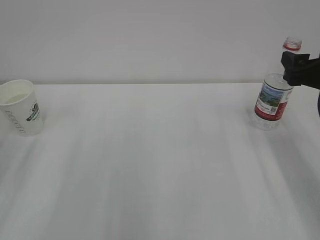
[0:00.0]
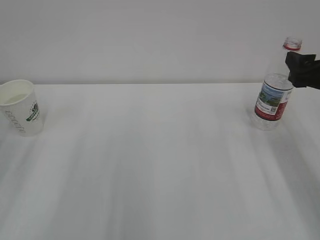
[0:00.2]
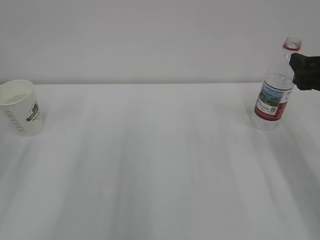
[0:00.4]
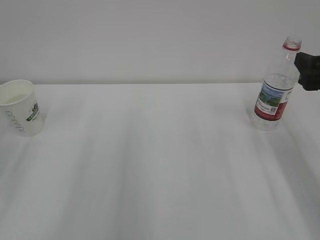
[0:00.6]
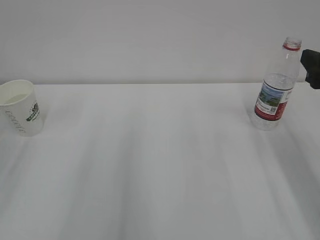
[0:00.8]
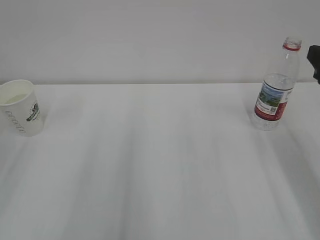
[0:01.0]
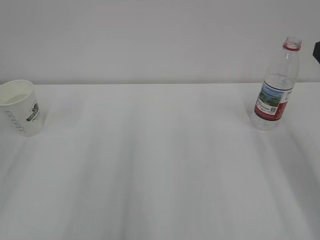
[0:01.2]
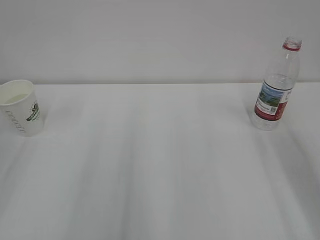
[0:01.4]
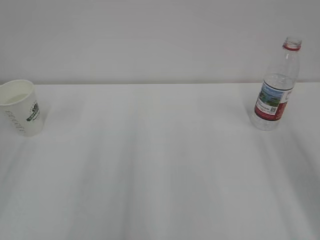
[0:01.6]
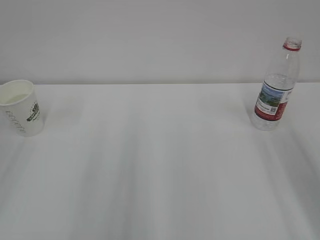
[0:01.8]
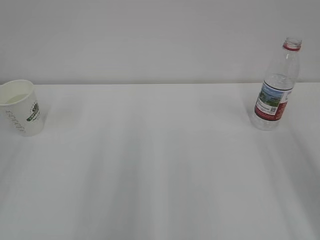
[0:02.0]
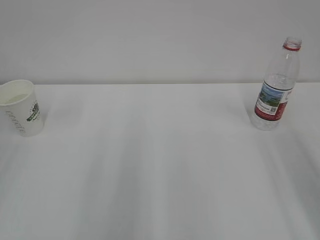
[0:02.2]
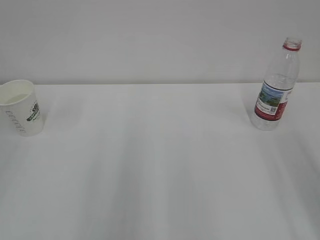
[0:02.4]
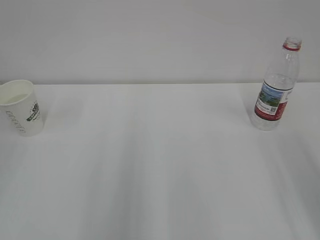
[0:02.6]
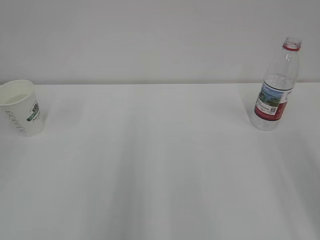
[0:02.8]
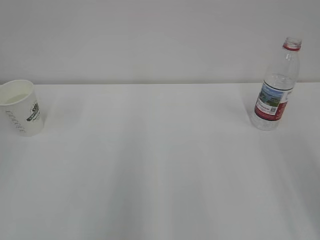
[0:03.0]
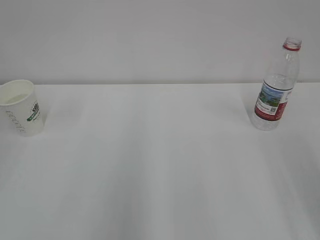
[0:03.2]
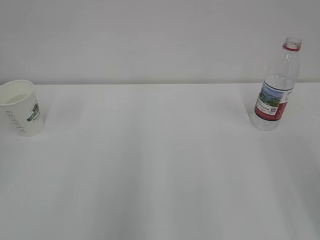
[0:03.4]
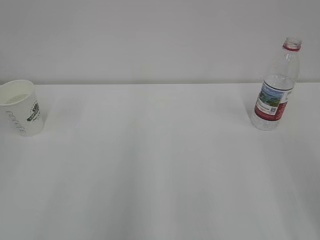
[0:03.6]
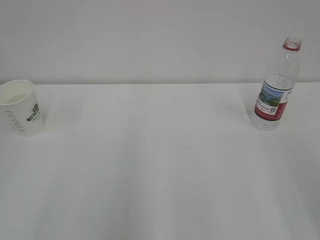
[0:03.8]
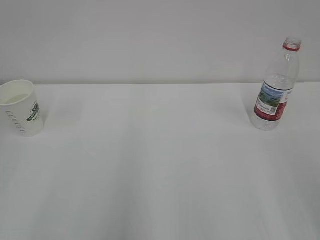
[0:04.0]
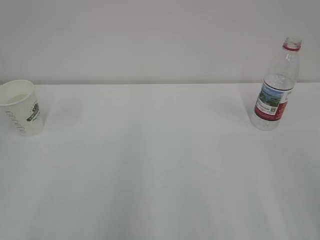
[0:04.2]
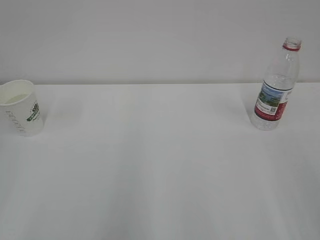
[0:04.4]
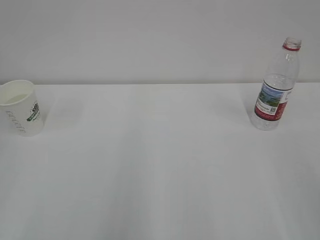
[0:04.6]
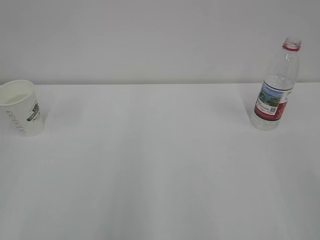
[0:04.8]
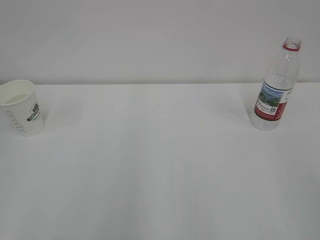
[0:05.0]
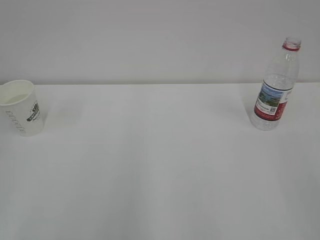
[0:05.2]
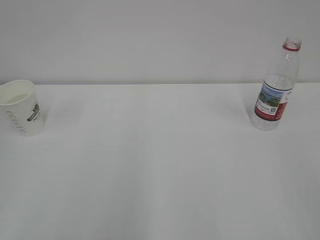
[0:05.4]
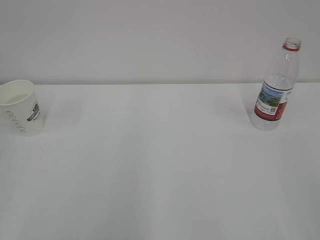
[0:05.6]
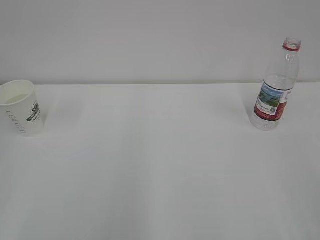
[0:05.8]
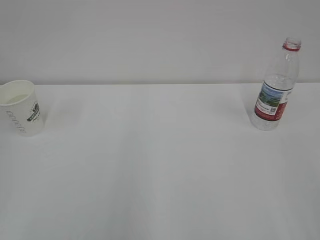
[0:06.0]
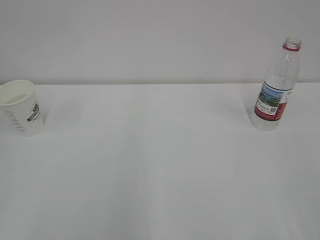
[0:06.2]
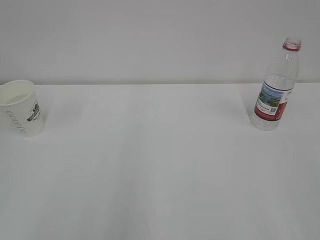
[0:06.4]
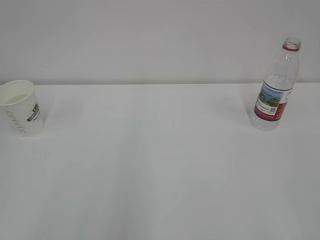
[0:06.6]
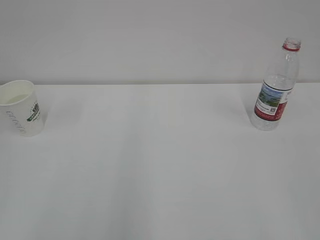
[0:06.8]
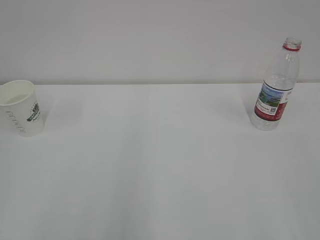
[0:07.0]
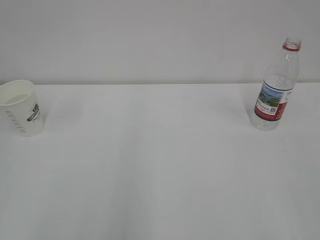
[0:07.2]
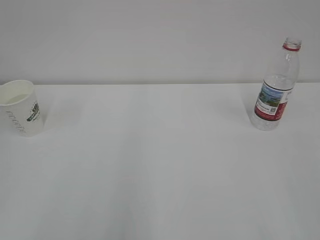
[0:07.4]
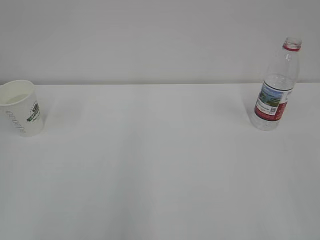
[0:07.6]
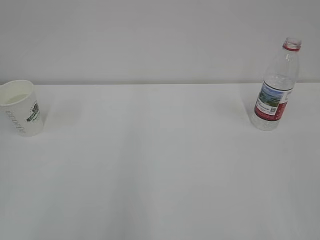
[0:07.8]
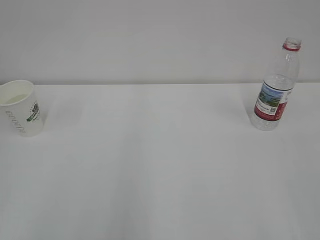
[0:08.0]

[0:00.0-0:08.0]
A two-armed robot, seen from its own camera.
0.0 to 1.6 s: The right gripper goes some 15 cm backward and upward.
6.4 to 8.0 s: Neither gripper changes place.

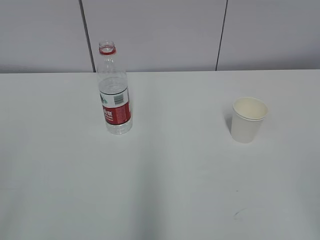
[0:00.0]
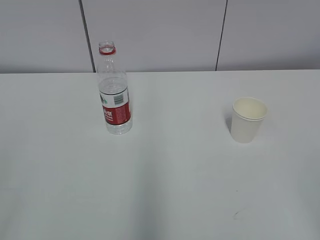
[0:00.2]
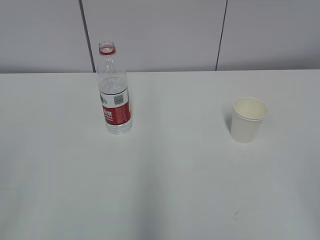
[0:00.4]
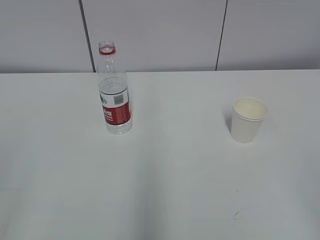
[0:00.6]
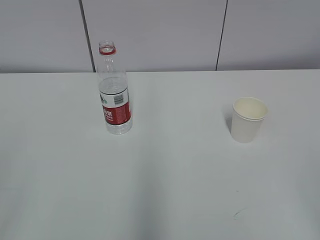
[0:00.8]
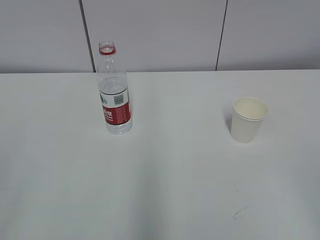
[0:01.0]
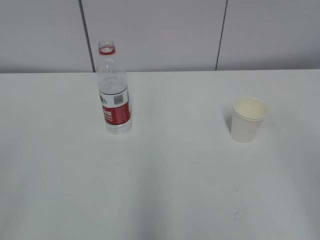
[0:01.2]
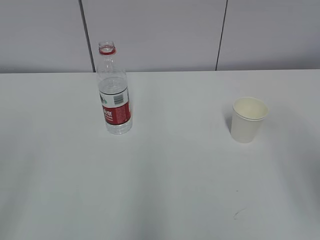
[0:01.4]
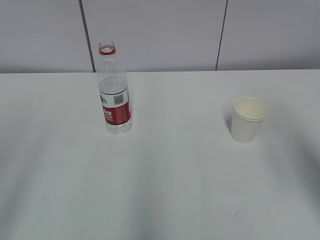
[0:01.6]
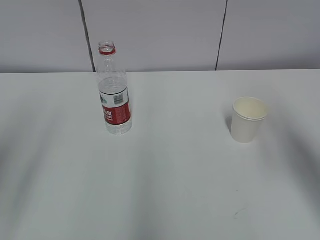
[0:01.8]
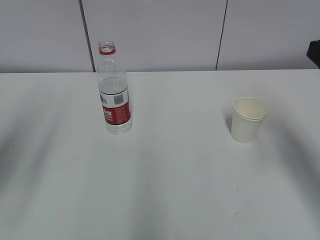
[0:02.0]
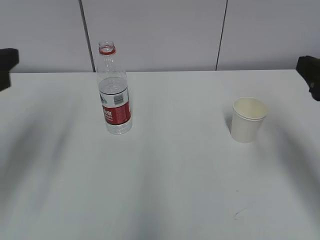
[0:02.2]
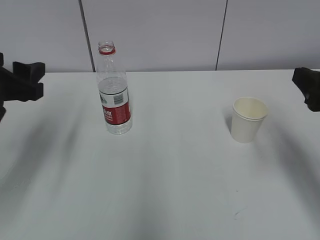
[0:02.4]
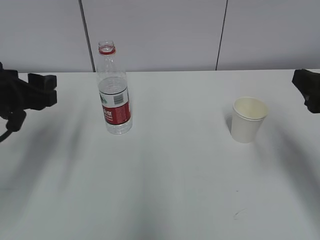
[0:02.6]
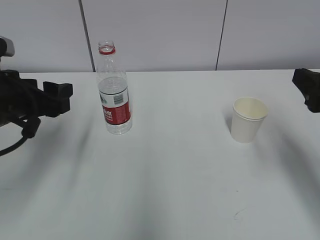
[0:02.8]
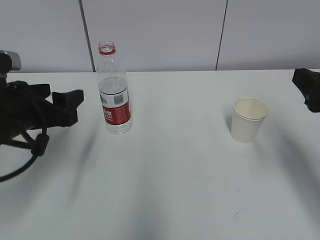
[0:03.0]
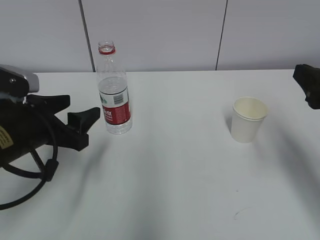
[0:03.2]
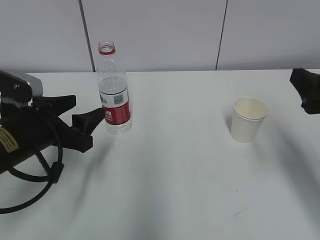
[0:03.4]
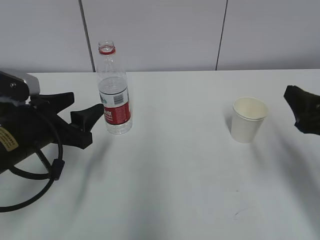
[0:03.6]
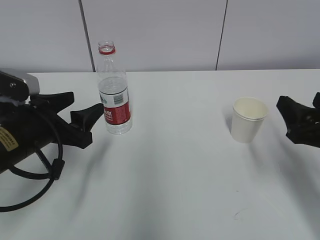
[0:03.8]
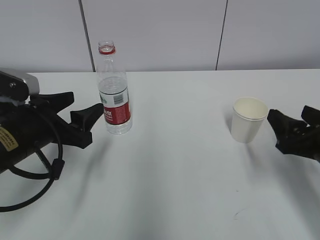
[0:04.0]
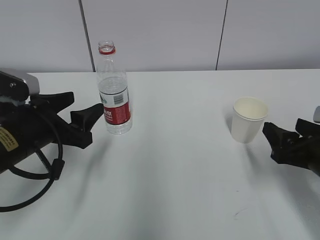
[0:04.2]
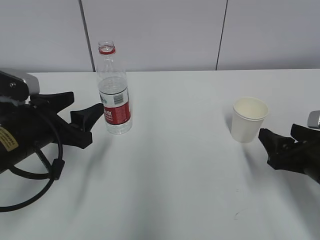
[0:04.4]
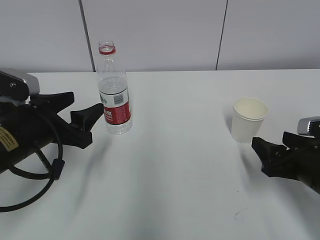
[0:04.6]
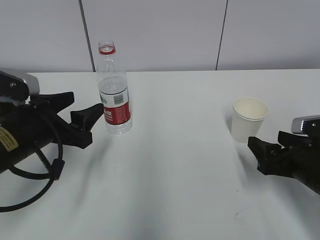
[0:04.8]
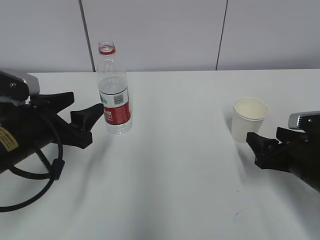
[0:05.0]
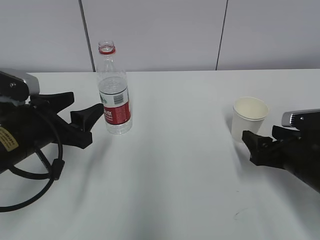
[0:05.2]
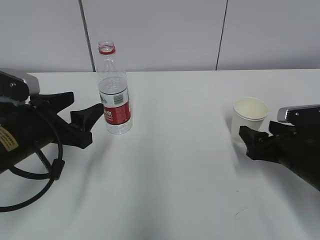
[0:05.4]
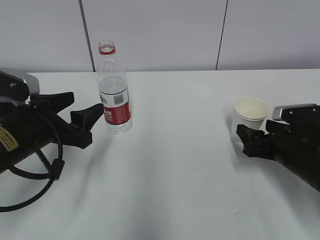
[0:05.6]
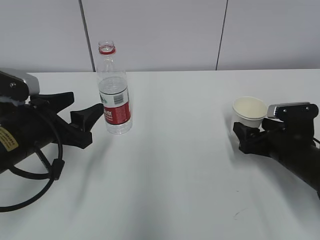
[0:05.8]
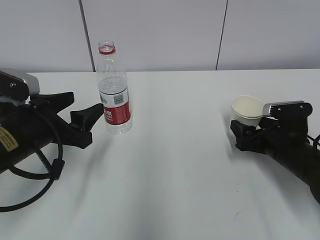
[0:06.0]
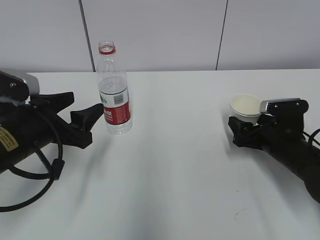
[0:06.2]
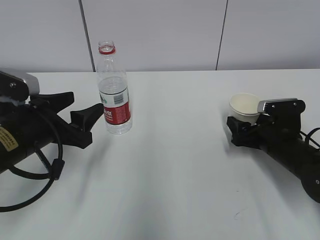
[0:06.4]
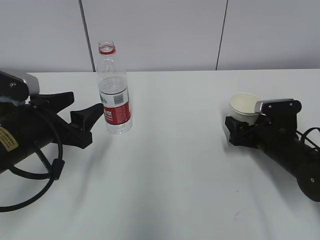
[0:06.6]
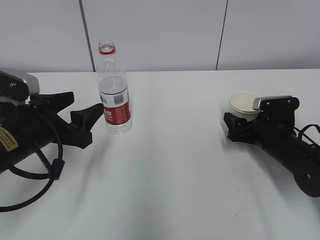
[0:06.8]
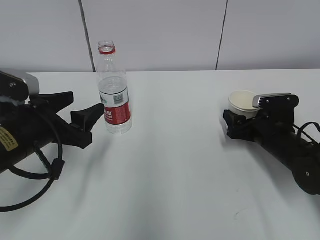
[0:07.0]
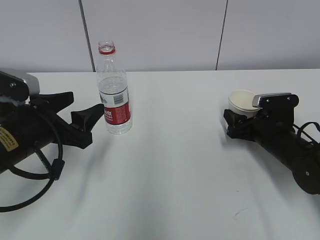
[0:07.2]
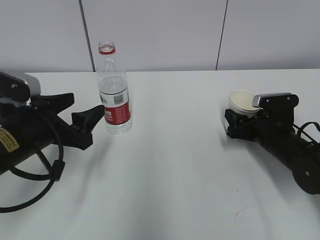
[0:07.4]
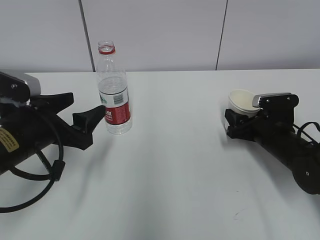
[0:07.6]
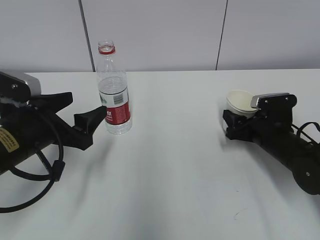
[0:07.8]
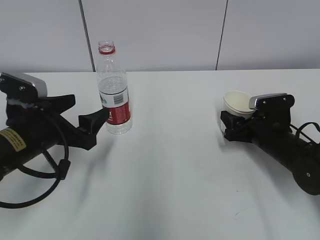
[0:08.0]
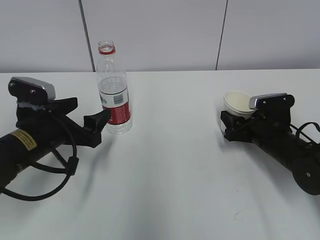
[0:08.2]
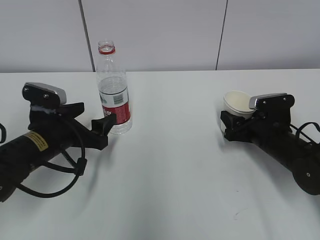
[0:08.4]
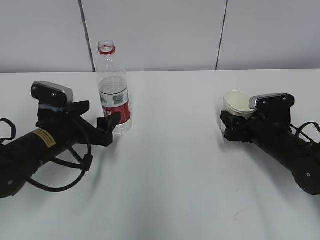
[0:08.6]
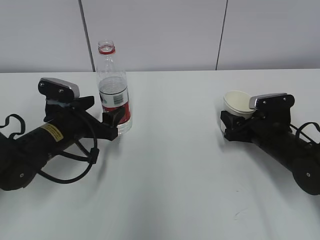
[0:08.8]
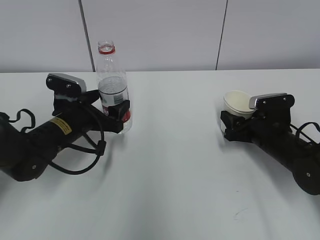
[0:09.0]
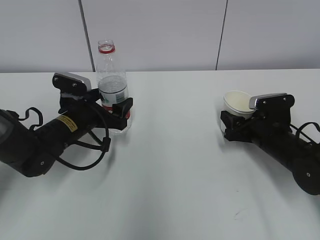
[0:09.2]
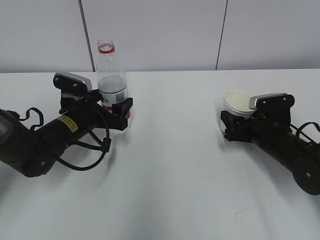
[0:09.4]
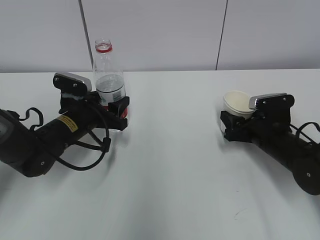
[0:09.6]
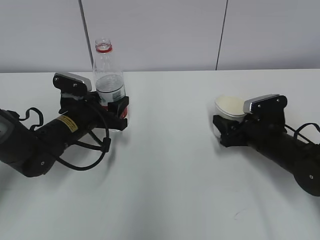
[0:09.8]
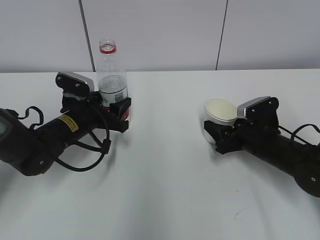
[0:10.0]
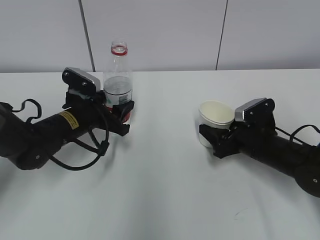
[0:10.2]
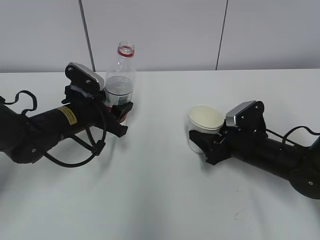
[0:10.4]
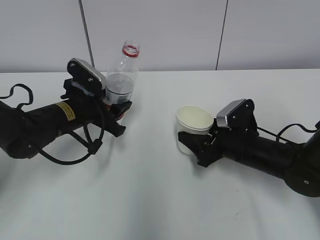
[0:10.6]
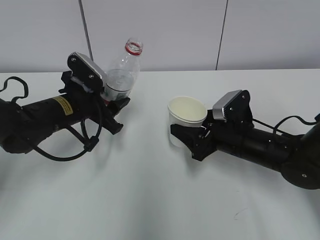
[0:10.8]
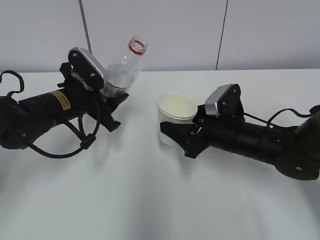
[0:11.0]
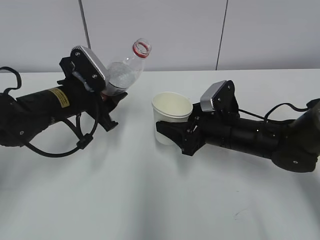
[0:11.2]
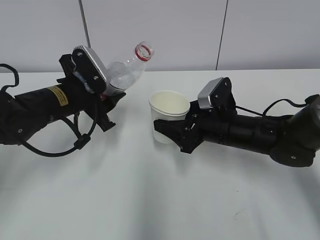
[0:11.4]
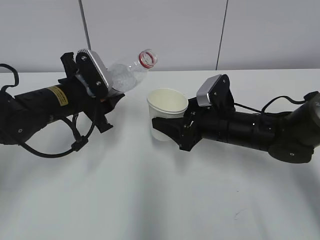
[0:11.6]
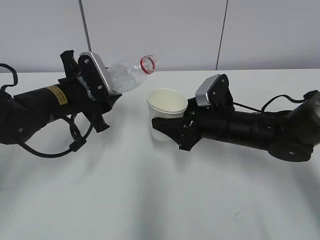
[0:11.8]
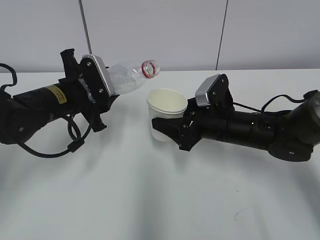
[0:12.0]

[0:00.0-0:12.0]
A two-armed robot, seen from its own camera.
Step, 0.0 to 8.0 s: Grab the paper cup with the right hand.
Step, 8.2 to 8.4 s: Grab the water bottle with the left hand.
1.6 to 3.0 s: The left gripper heads forward, downward and to the right, covering about 25 cm; the right gripper goes about 10 cm downward and forward.
3.0 to 4.4 s: The right gripper is displaced downward by roughly 15 cm.
4.4 to 6.0 s: The right gripper travels forward and downward by some 10 cm.
6.0 to 7.6 s: The right gripper closes its fingers.
7.6 to 9.0 s: The left gripper heads forward and downward, covering some 10 cm.
9.0 to 10.4 s: The left gripper closes up.
10.4 to 12.0 s: The right gripper goes roughly 10 cm to the left and upward.

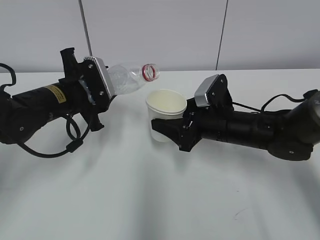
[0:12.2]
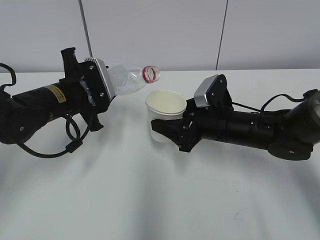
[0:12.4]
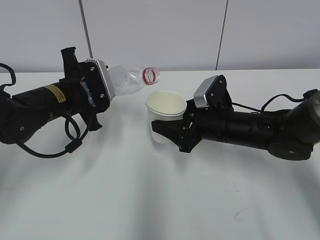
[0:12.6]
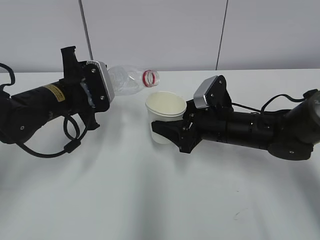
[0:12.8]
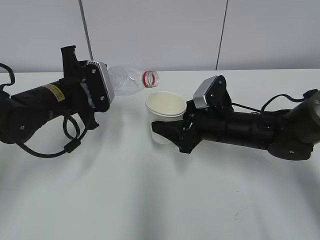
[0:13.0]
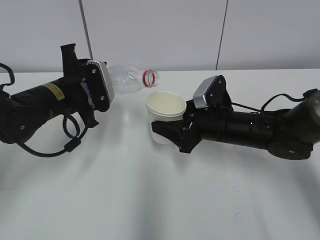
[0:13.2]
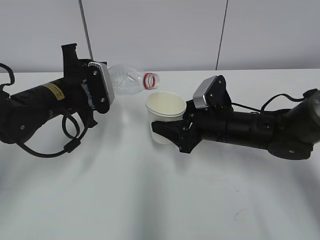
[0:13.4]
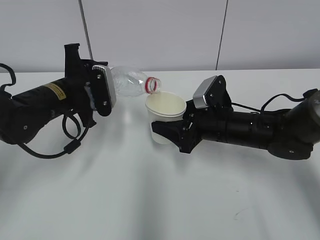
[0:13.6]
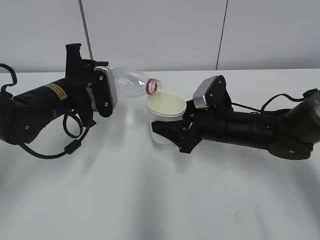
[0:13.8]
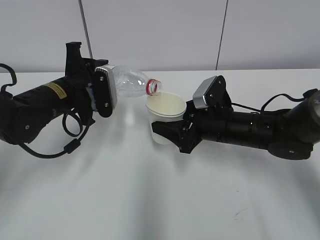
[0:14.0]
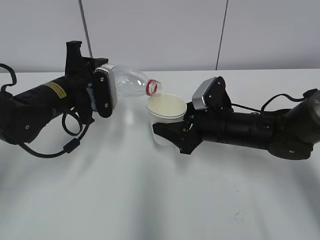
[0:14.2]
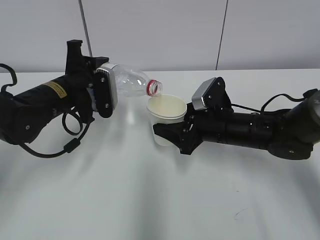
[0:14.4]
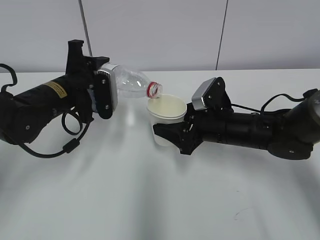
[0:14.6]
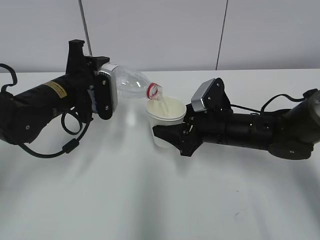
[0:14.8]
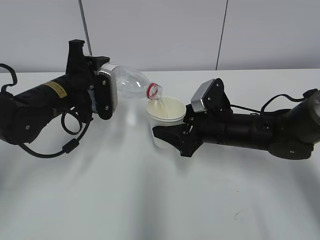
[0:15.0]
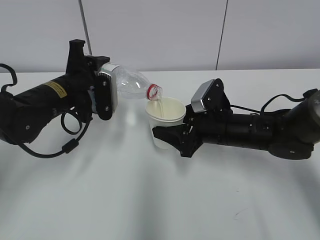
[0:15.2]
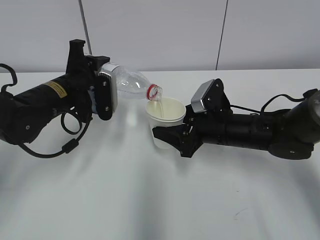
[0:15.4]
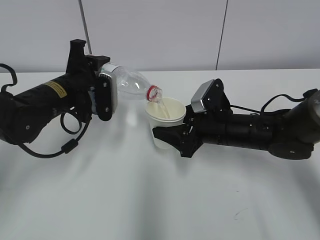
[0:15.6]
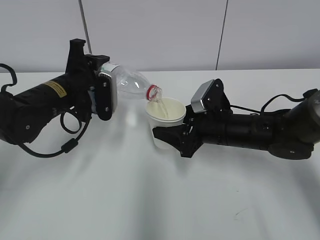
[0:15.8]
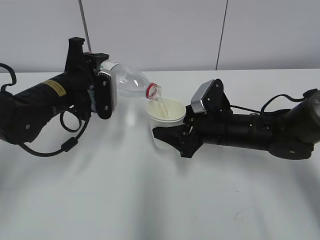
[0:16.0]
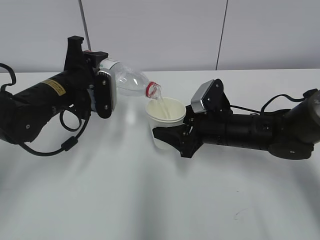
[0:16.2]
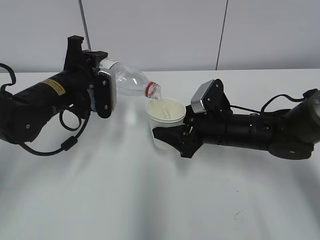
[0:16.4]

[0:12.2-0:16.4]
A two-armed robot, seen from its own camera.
Step, 12.2 to 16.0 s: Fill water with the right hand.
Step, 12.2 to 16.0 s: Pour water with the left hand.
12.2 to 13.6 s: The grippers move only a little.
13.6 to 15.0 s: There are only small adjustments of the grippers.
15.0 to 16.4 s: The two grippers keep their place.
